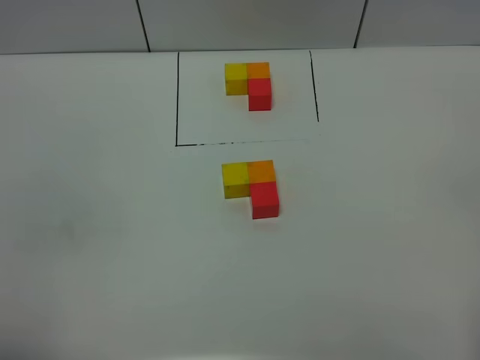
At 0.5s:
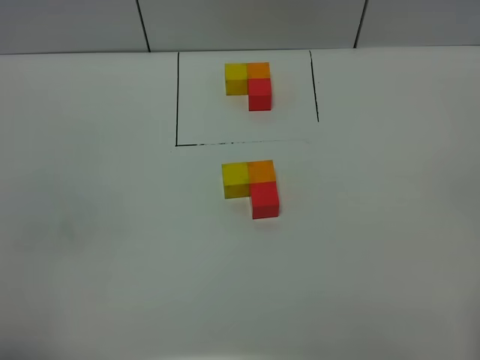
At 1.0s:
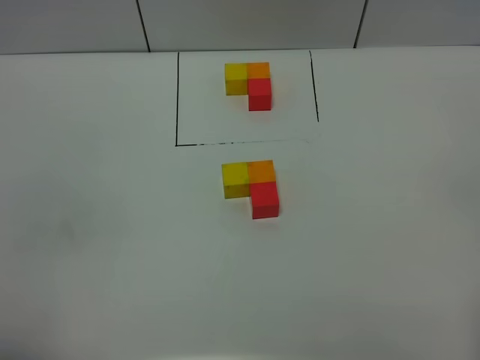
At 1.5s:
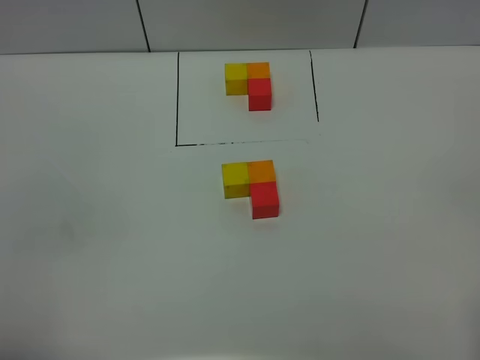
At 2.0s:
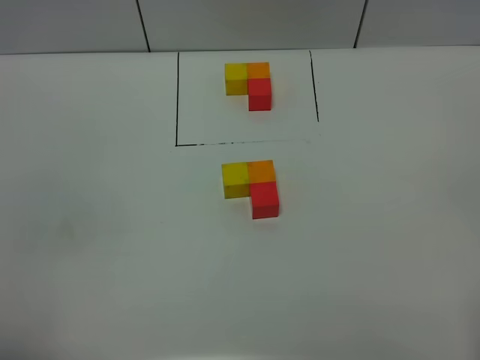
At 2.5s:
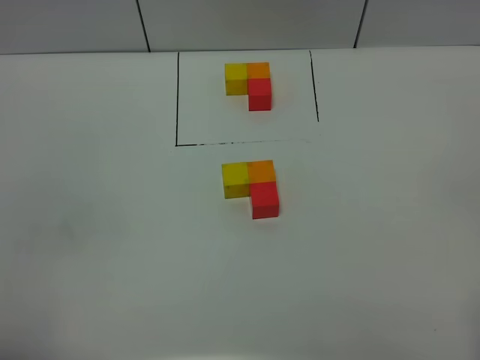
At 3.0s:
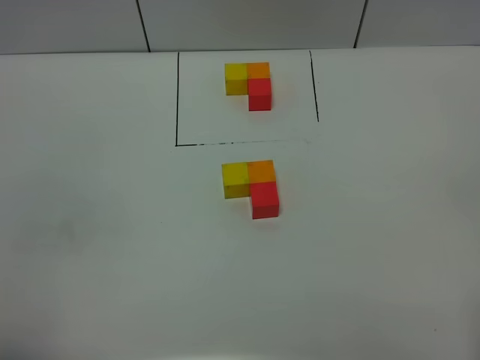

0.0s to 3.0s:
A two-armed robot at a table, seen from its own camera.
Task of the whole recording: According to the building block template in front, assemble the scattered blocks together.
0.0s to 3.0s: Neither gripper changes place.

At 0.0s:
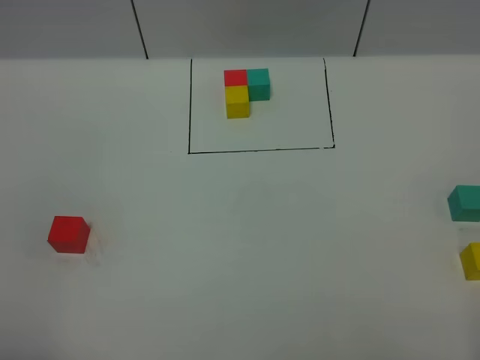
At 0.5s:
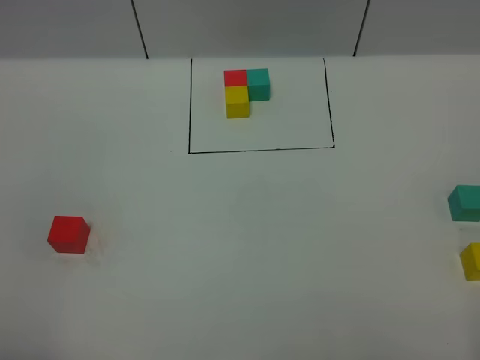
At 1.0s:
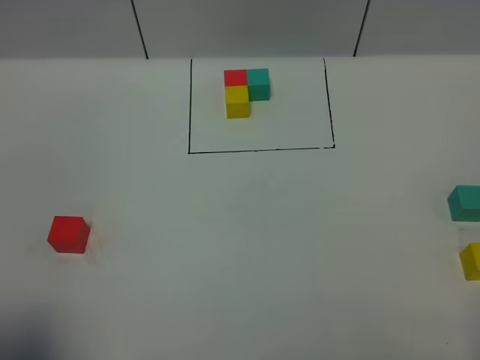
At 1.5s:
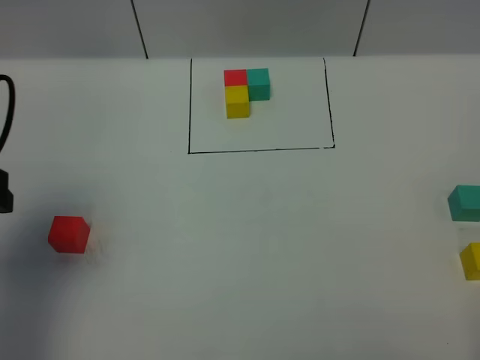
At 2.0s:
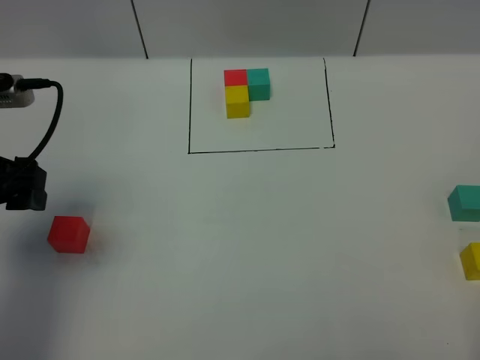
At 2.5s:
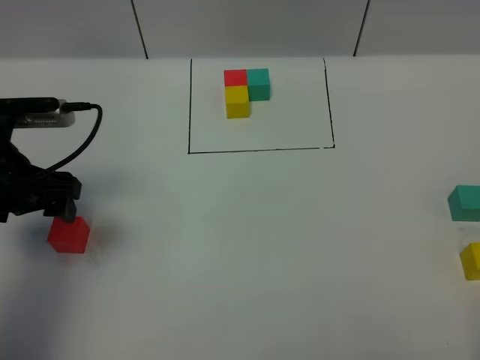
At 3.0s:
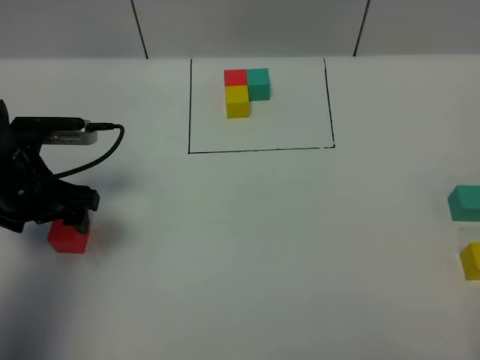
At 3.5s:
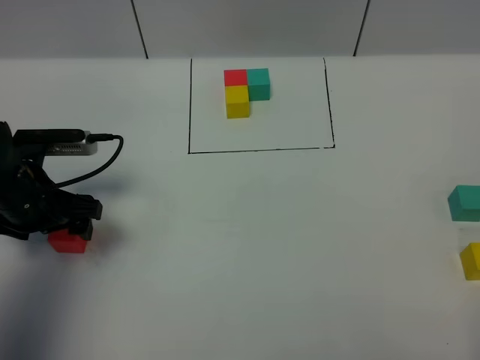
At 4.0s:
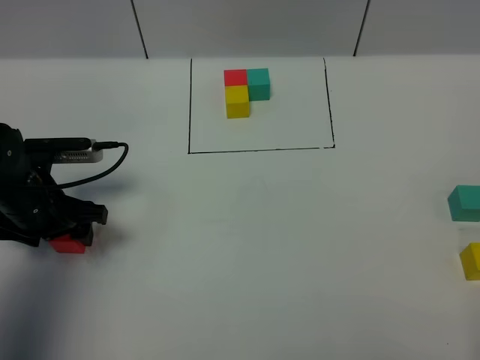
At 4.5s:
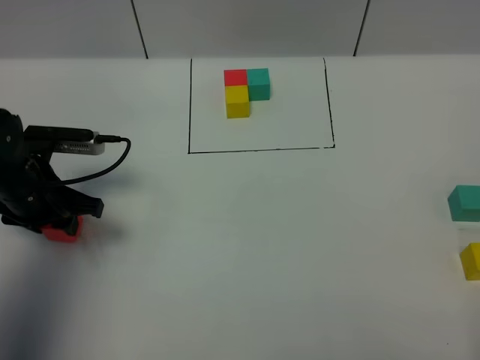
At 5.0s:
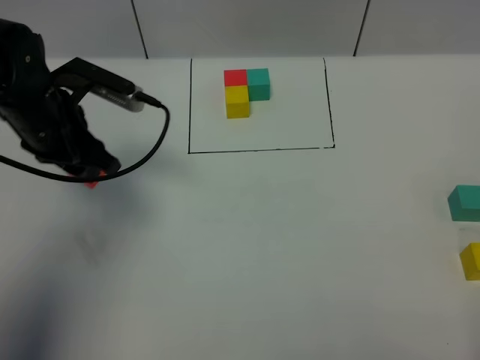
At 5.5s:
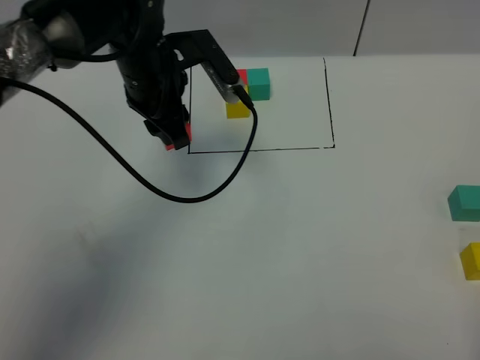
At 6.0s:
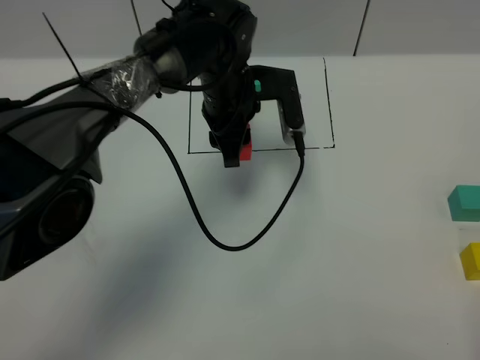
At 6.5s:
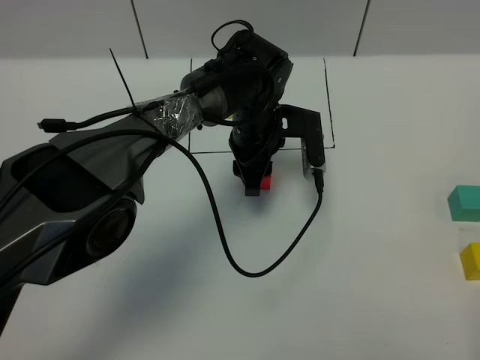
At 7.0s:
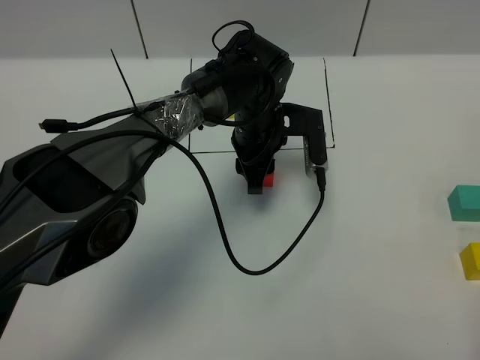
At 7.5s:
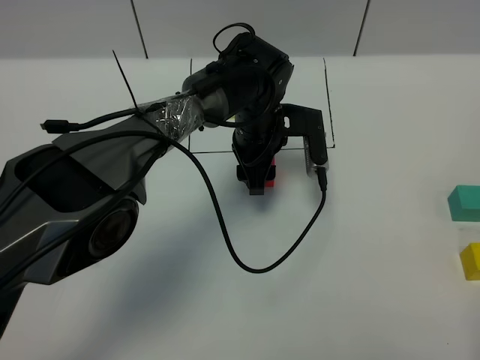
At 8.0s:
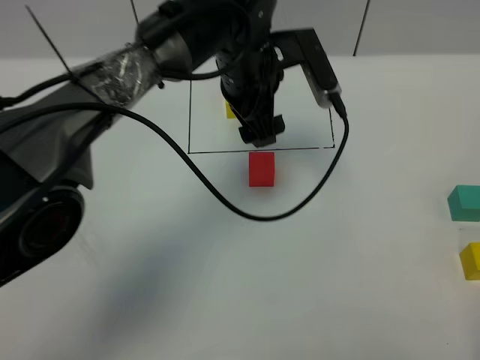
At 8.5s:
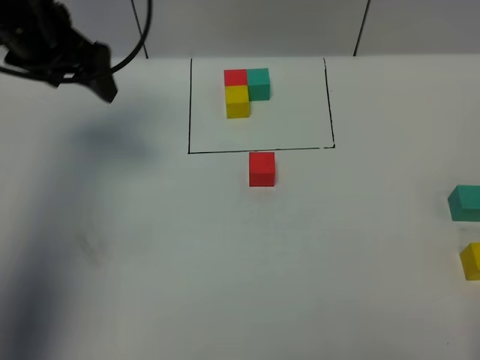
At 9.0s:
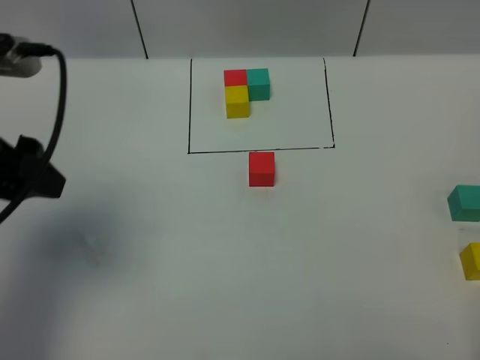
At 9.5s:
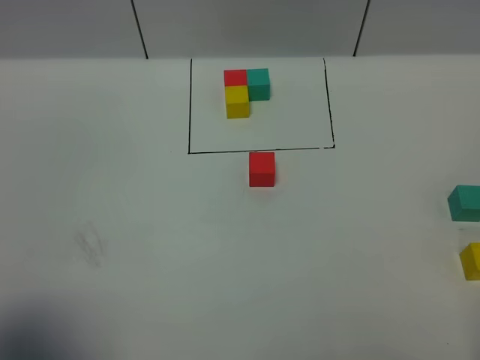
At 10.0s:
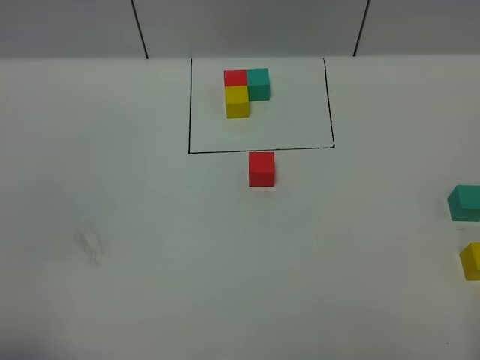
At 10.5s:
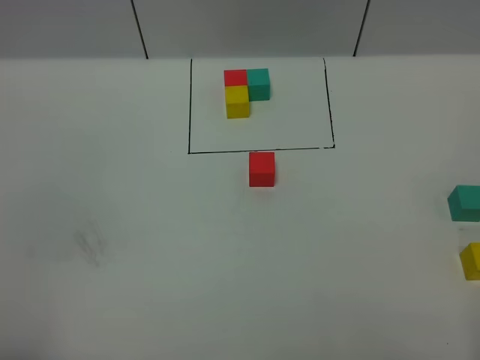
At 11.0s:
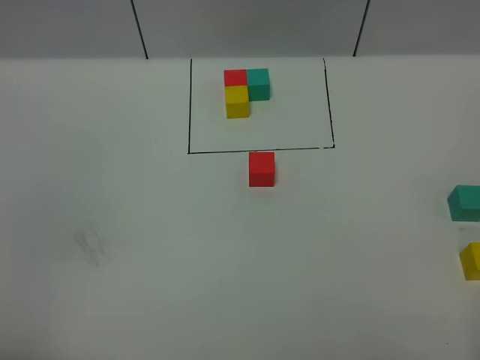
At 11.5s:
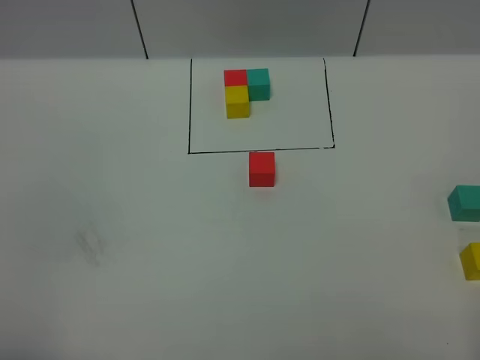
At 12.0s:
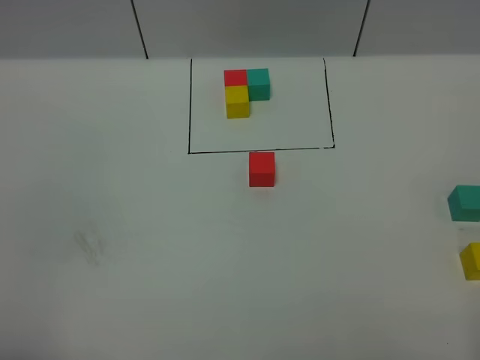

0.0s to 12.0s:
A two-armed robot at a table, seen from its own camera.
Task of the whole recording: According to the building block template in front, assemble the scattered blocks together.
Step, 0.0s to 7.0s: Put the red build block in the center of the table.
0.0s to 2.0s: The left gripper goes roughly 25 cm forward.
2.0s to 4.0s: The left gripper goes about 15 cm downward, and closes.
4.0s to 6.0s: The left gripper shifts roughly 30 cm to the right and forward, and closes up.
6.0s to 8.0s: The left gripper travels upward by about 5 cm, and opens up.
8.0s to 10.0s: The left gripper moves backward and to the left, roughly 50 cm.

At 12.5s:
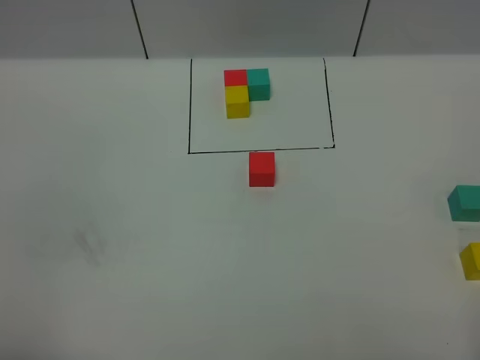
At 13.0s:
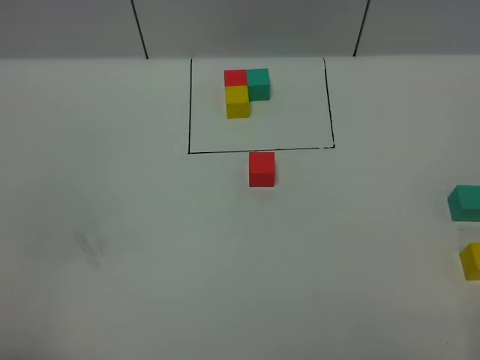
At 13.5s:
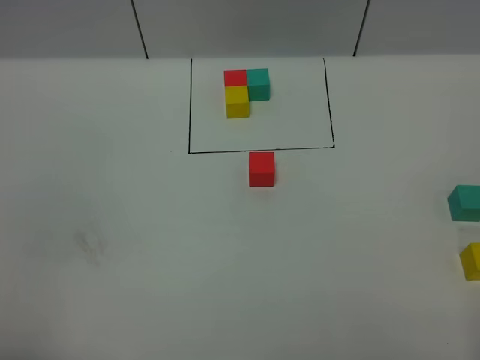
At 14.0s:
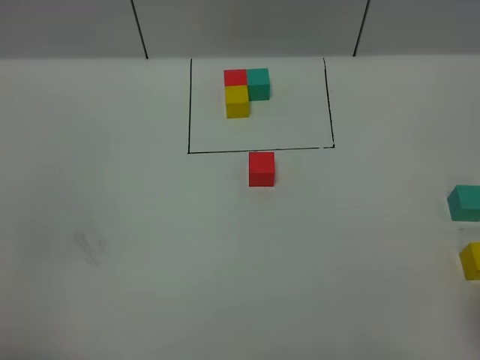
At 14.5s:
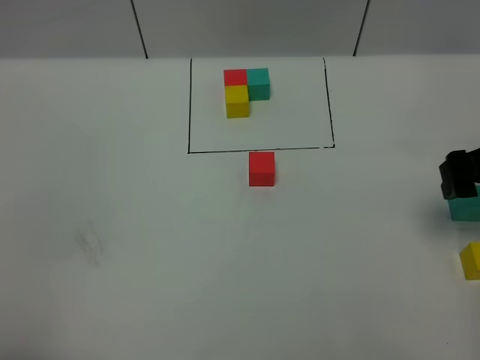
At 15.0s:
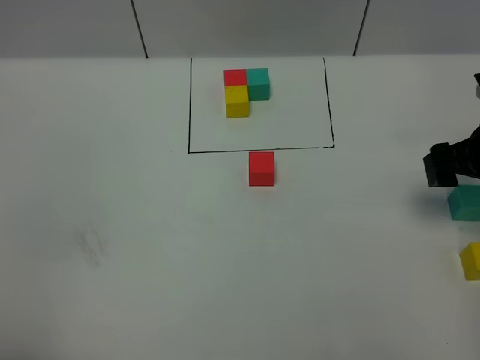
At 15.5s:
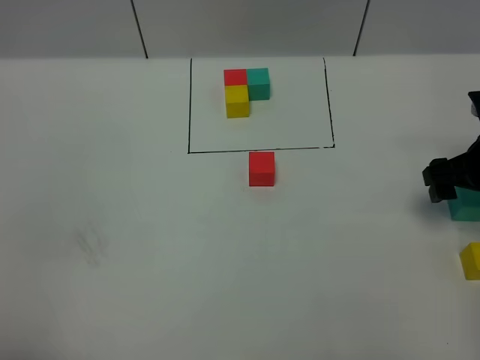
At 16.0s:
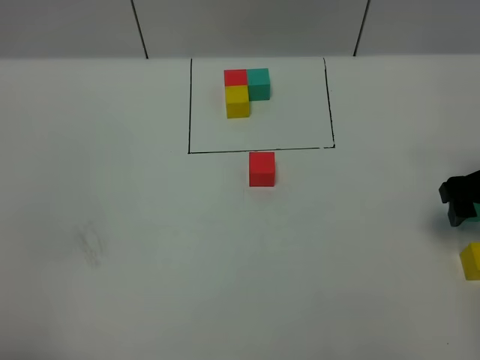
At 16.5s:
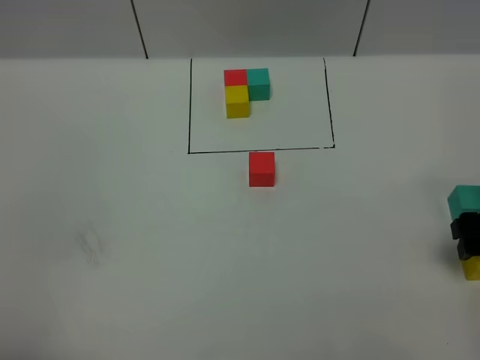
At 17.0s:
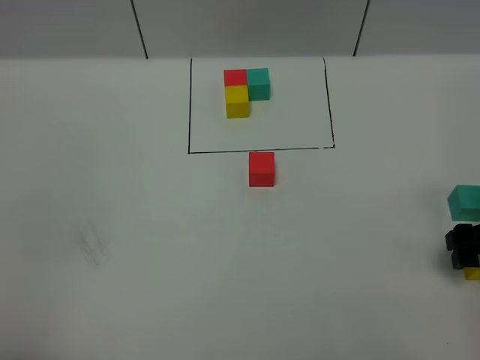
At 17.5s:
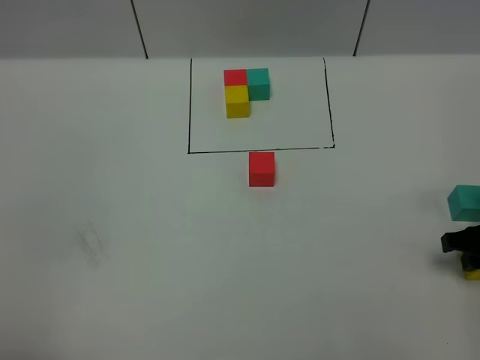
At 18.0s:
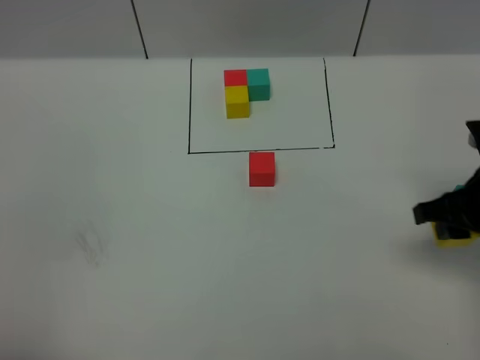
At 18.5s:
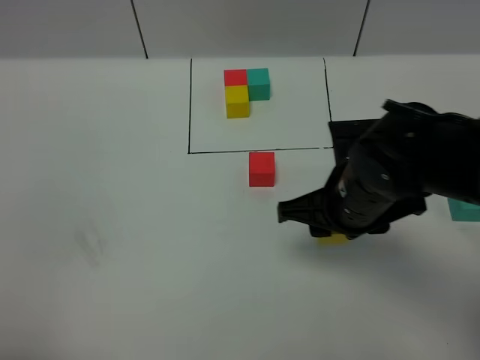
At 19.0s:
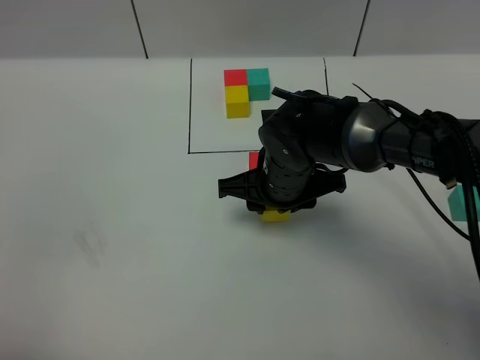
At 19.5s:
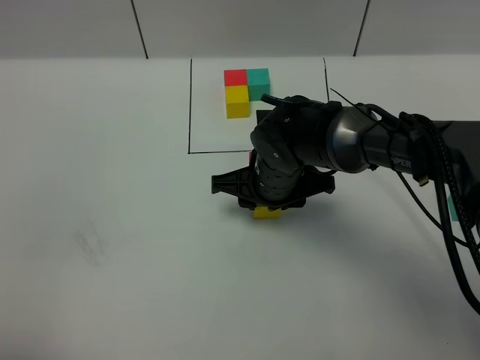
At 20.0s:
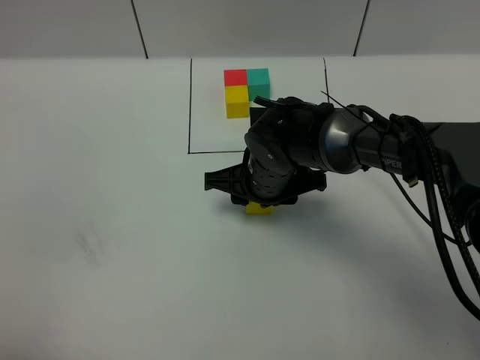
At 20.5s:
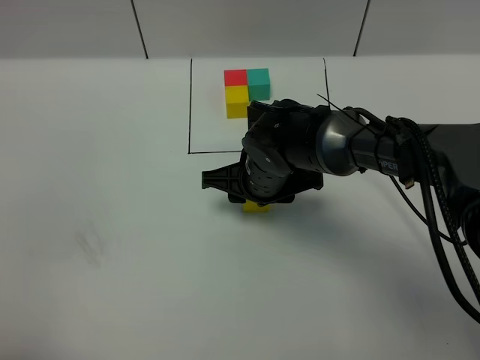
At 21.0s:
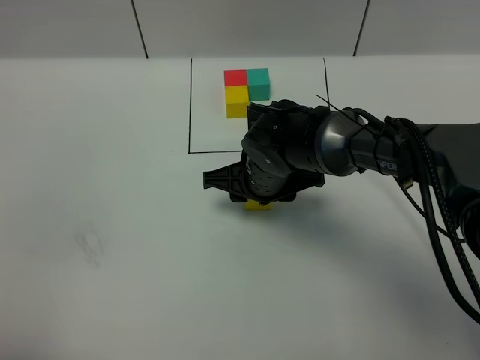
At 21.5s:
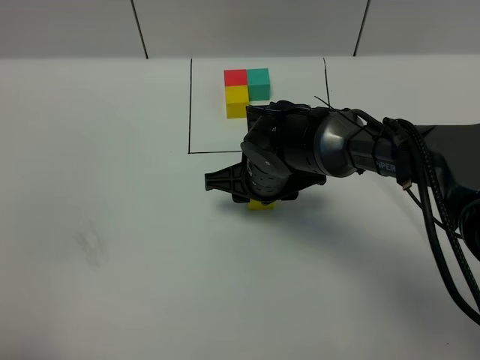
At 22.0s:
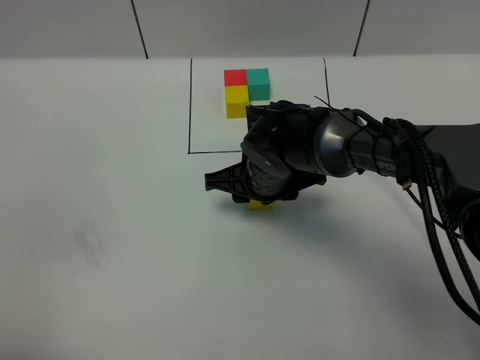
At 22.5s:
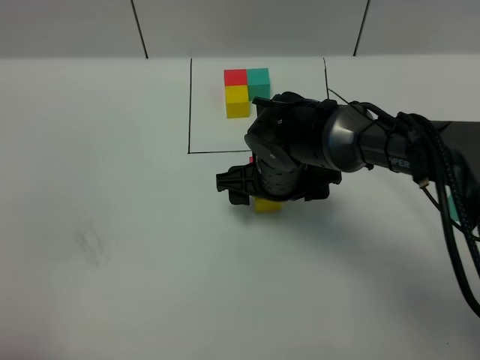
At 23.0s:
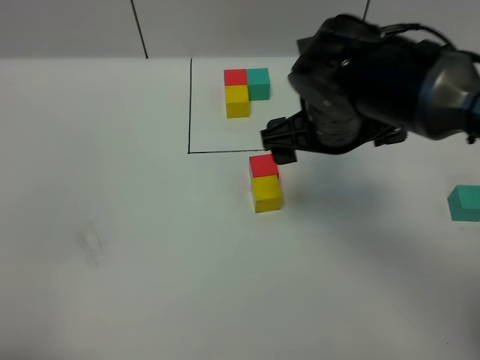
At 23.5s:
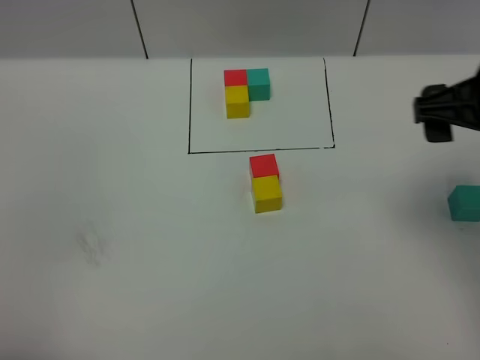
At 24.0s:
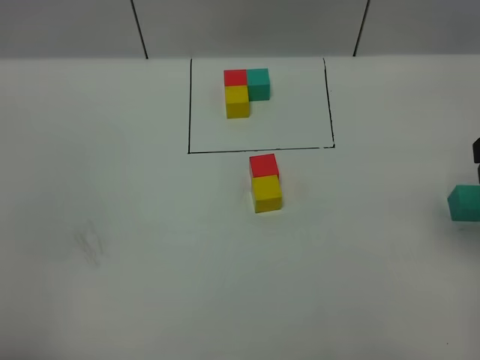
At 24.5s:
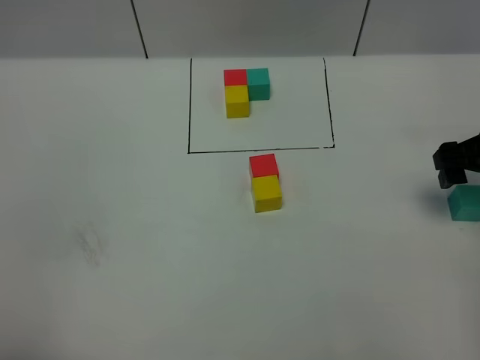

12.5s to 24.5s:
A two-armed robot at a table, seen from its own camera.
Task of the whole recording: According to the building block template in front, assemble the scattered blocks together.
Step, 12.5s to 22.0s: Put the yellow build block on the behind of the red build block.
12.5s to 14.5s: The right gripper goes approximately 30 cm forward.
14.5s to 16.5s: The right gripper shifts about 5 cm downward.
16.5s to 18.5s: The right gripper shifts about 20 cm to the left, and closes.
18.5s to 20.5s: The right gripper goes some 15 cm to the left, forward and downward.
20.5s to 22.5s: The right gripper opens.
22.5s to 24.5s: The right gripper goes approximately 25 cm to the right.
